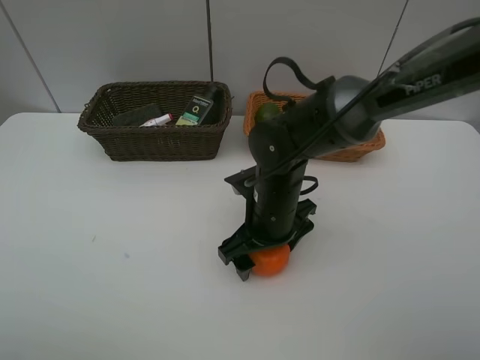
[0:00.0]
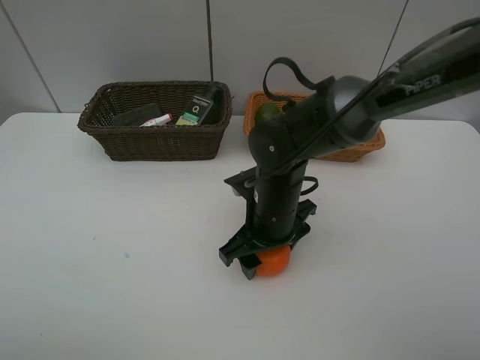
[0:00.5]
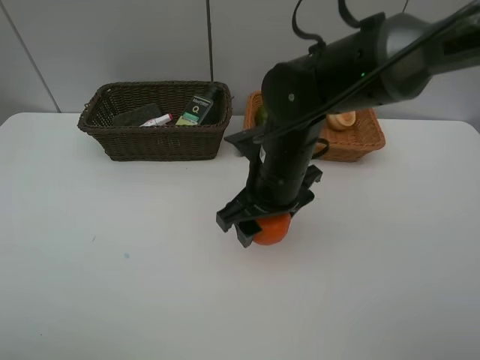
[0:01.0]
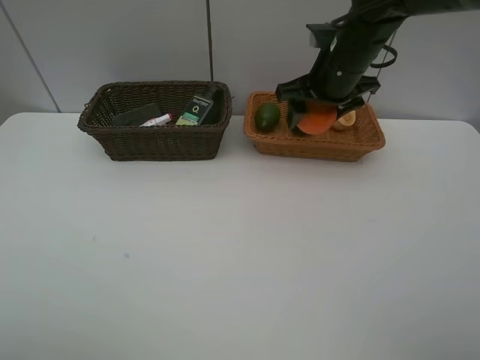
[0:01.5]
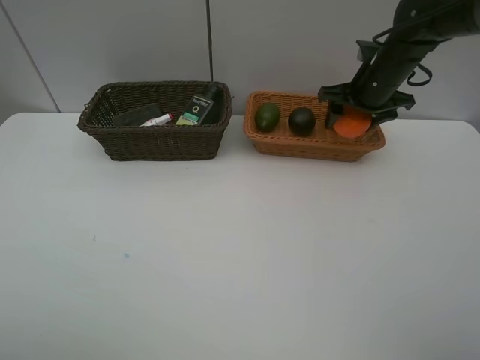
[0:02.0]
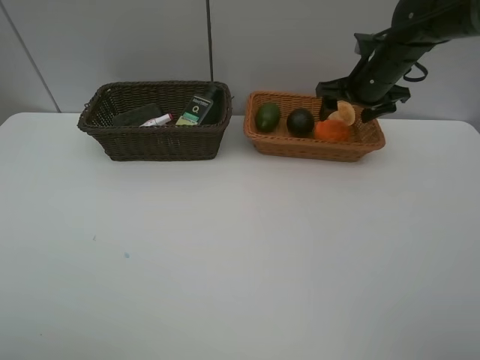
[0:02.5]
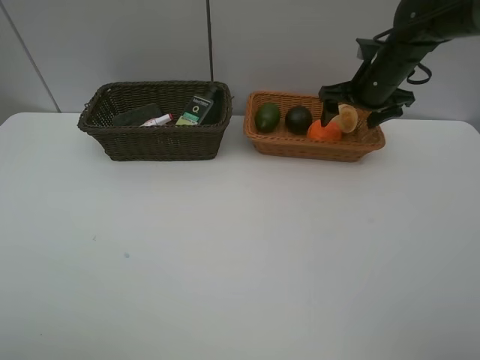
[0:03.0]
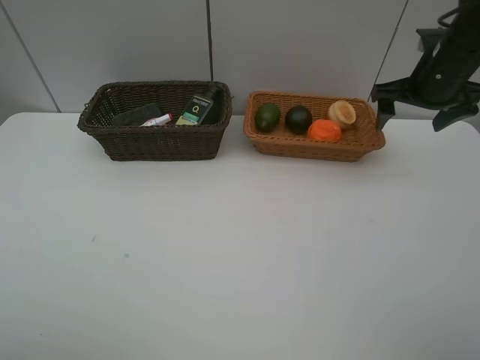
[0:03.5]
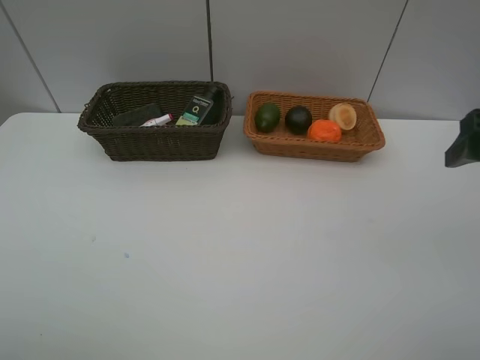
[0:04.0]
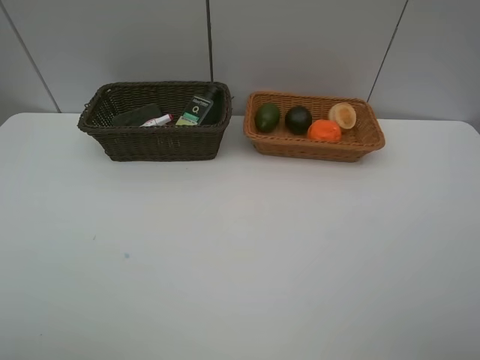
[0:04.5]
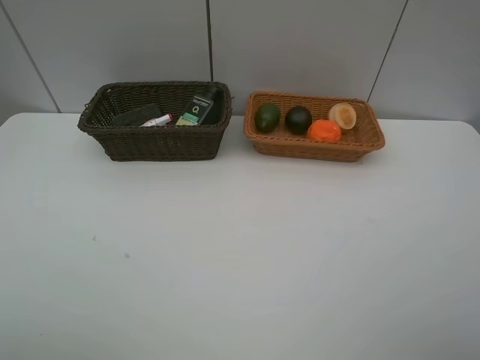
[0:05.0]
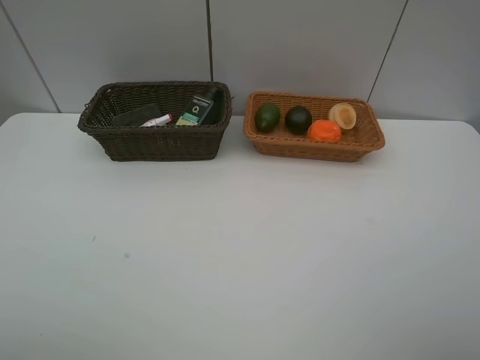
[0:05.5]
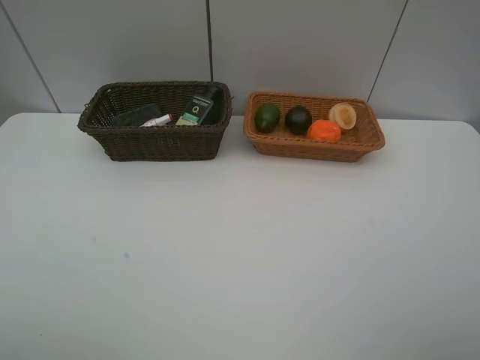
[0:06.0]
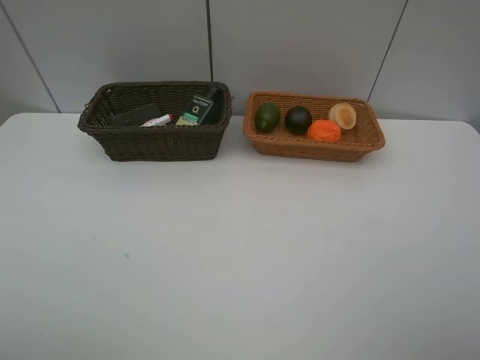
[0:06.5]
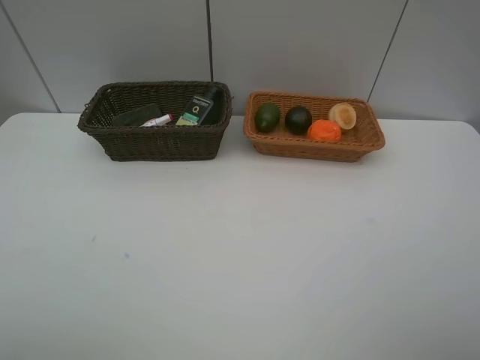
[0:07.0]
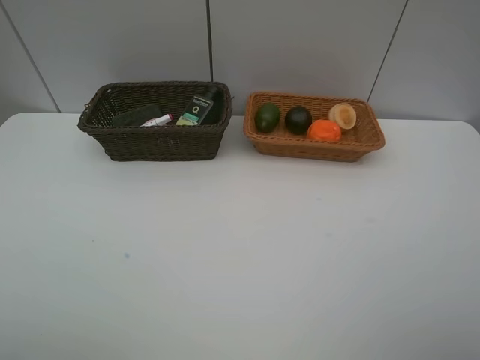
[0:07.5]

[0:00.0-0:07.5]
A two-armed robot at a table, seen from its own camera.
Task of the whole recording: Place multiple objects separately in different baskets.
Step, 0:01.0 to 0:02.5: Place the orange in the light basket with right gripper.
0:00.0 to 0:02.0: The right gripper moves forward, to the right and upward, about 25 cm, and closes its fingers.
0:02.0 to 0:04.0: The right gripper moves backward, approximately 25 cm, and opens its fingers.
0:04.0 to 0:05.5: The right gripper is displaced backward by about 20 cm.
